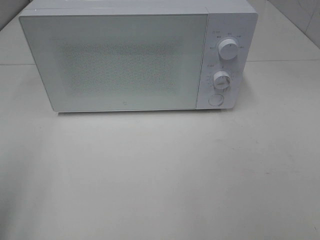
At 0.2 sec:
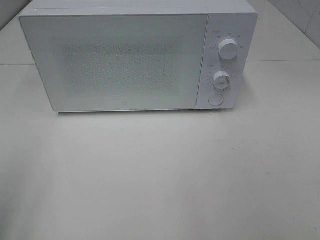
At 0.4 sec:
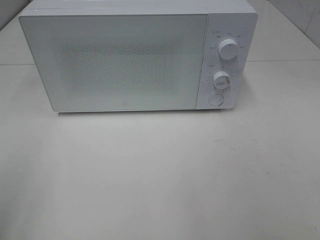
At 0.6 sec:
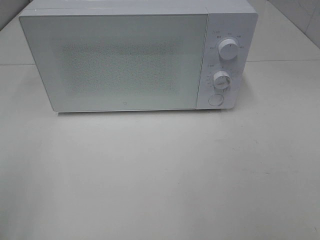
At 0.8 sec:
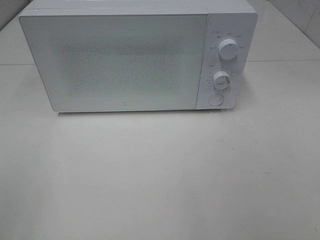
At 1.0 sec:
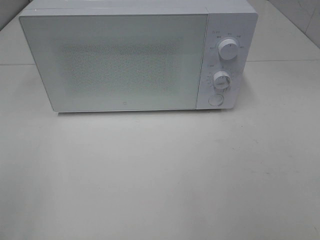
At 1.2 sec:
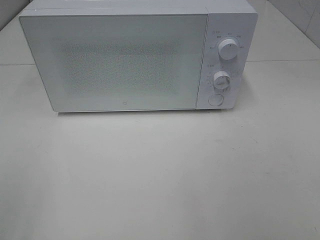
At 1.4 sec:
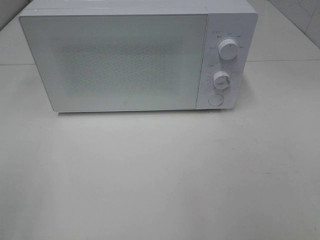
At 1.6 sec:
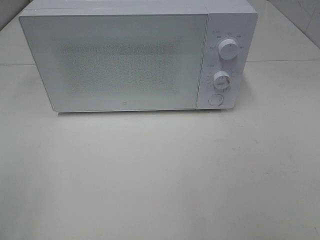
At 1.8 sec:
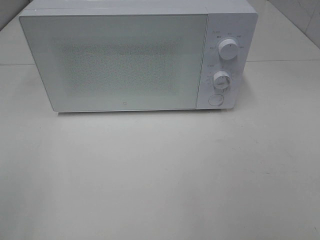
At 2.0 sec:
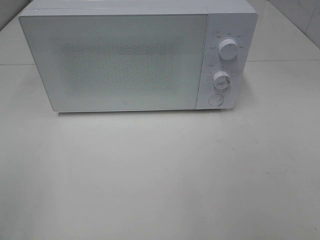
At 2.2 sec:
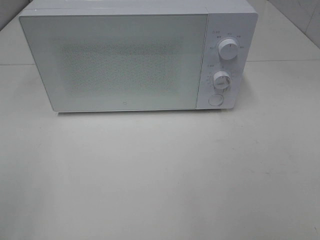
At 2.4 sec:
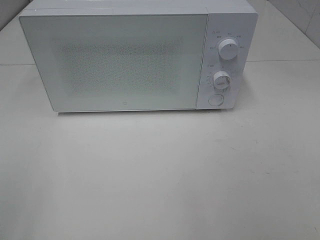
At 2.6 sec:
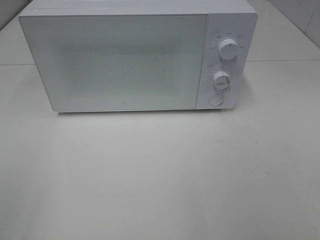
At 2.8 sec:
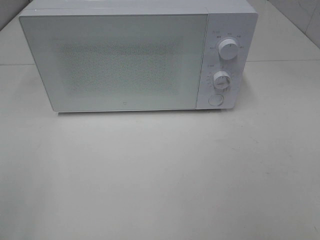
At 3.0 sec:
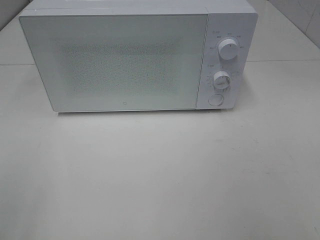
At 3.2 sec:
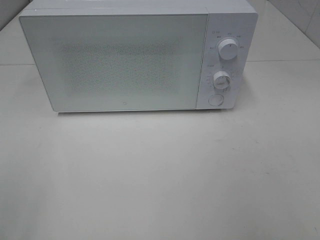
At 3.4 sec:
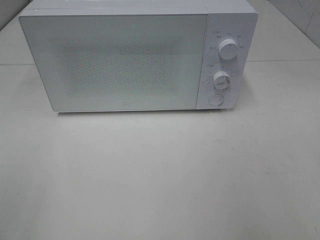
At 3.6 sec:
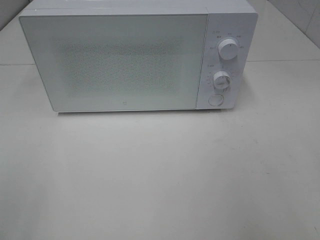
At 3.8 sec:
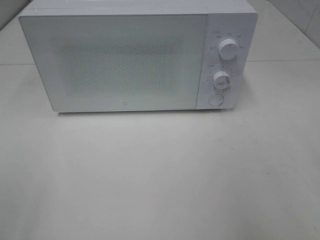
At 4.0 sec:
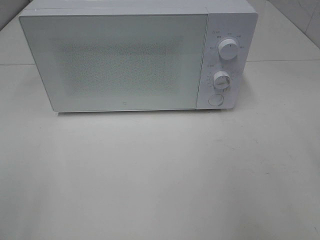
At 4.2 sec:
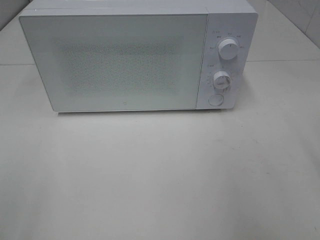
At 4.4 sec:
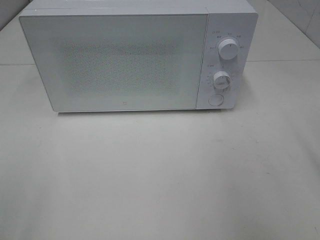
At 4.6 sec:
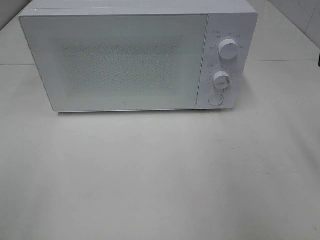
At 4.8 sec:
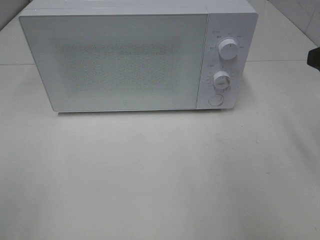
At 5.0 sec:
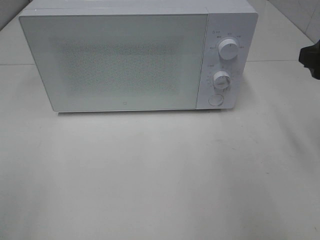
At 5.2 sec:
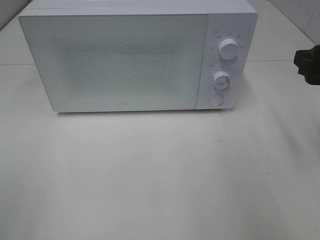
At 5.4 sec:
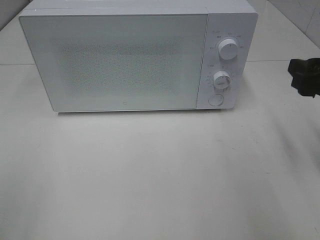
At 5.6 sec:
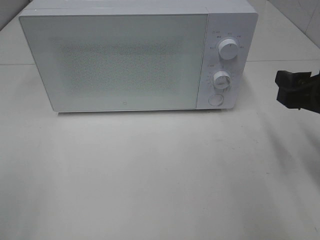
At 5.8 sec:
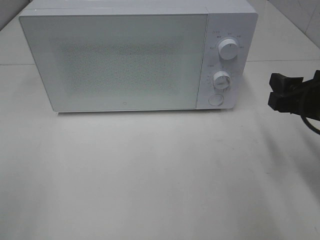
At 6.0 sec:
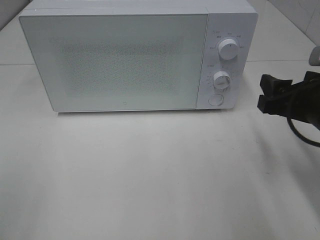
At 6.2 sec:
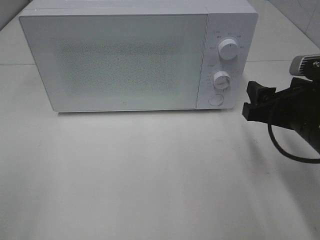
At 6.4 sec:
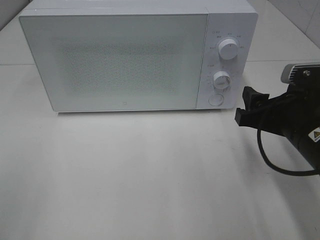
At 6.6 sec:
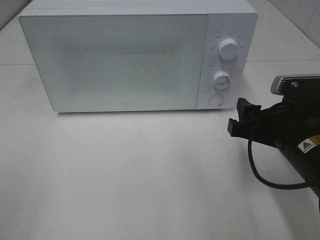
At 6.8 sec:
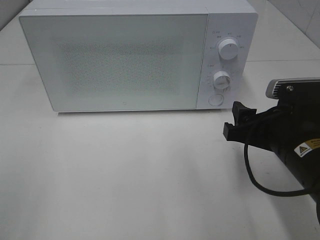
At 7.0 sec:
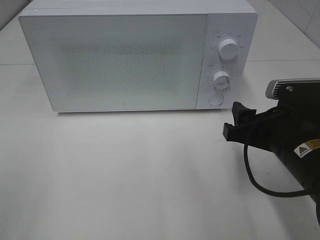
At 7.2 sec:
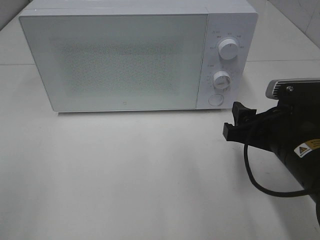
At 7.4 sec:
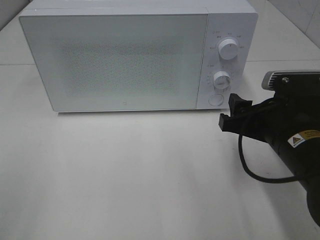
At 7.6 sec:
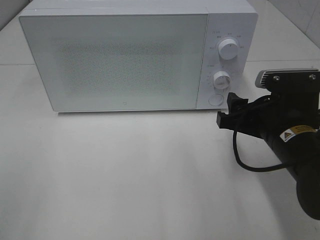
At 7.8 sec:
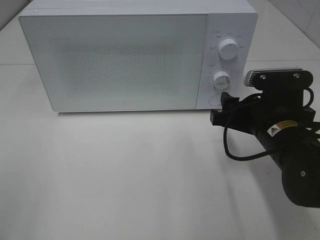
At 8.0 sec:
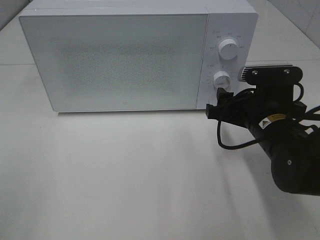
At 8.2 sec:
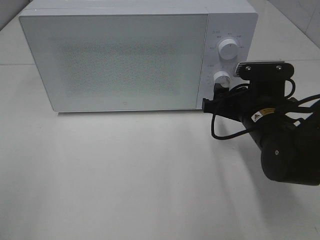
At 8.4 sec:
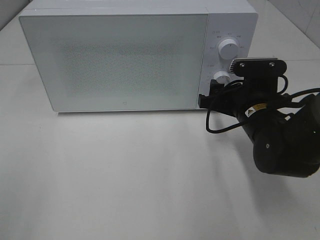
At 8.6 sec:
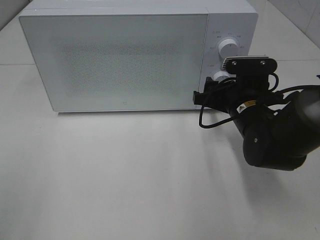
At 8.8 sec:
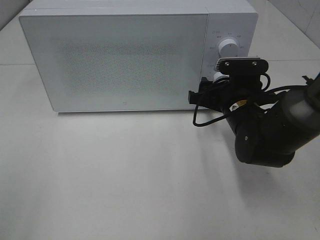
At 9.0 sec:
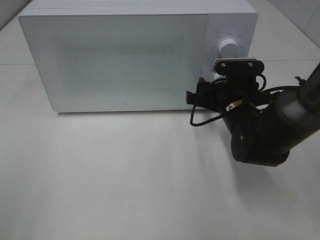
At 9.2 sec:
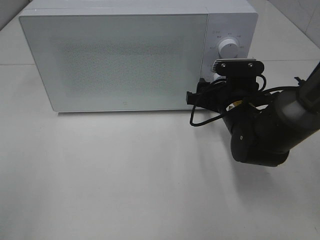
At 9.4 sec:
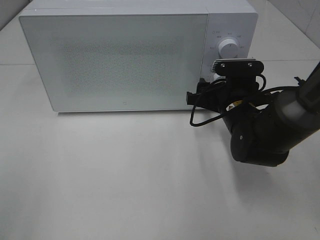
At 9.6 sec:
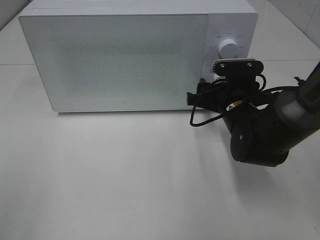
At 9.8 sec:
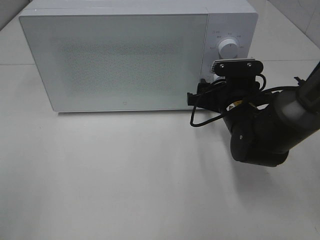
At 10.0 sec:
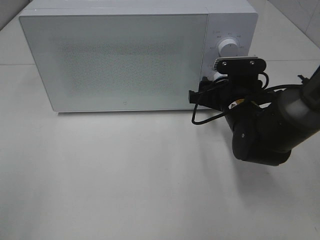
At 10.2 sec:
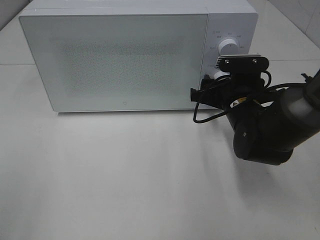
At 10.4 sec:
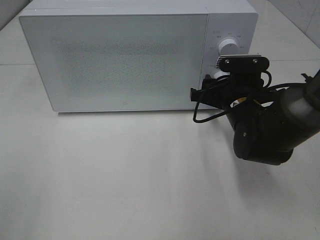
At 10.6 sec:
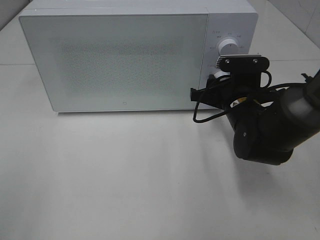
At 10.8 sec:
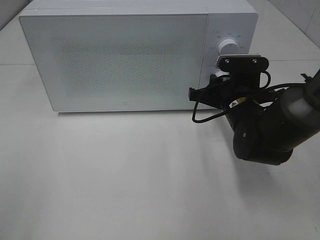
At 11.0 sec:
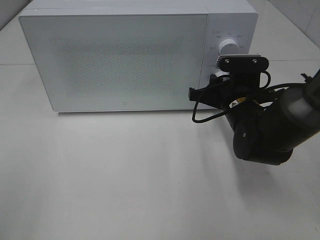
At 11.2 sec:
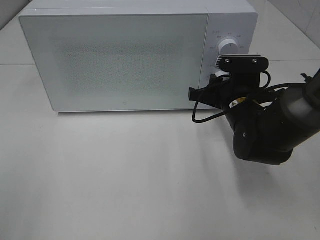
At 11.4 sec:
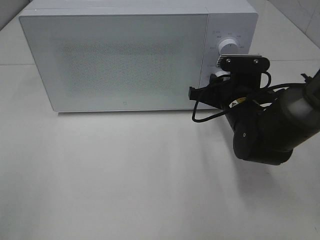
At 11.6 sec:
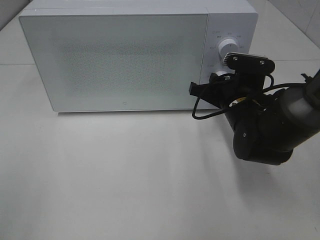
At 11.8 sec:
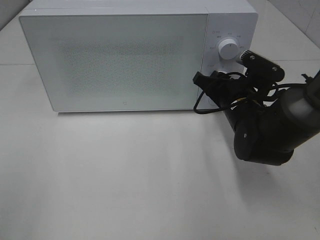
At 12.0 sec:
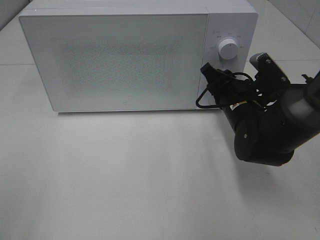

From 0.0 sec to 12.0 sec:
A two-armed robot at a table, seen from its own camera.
Task of the whole recording: Heat Sandwich.
From 4.4 sec to 6.0 sec: The right gripper heads downward and to the left, covering about 10 cm.
From 6.0 sec to 7.6 sec: The right gripper shifts about 5 cm to the left.
From 7.6 sec to 9.0 sec: The right gripper shifts about 10 cm forward.
From 9.0 sec to 10.4 sec: Both grippers stay put.

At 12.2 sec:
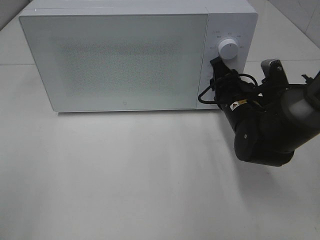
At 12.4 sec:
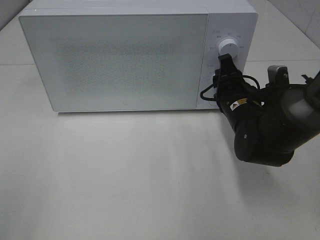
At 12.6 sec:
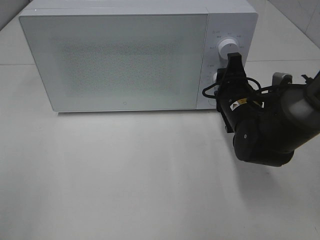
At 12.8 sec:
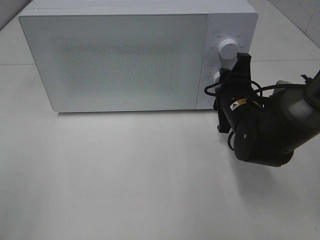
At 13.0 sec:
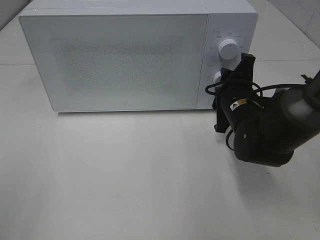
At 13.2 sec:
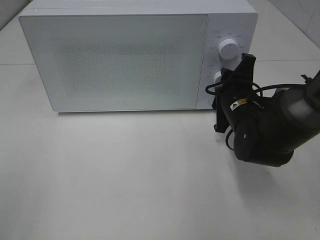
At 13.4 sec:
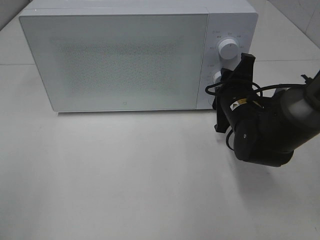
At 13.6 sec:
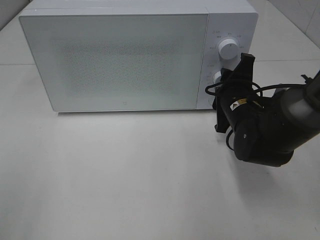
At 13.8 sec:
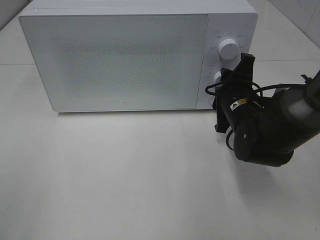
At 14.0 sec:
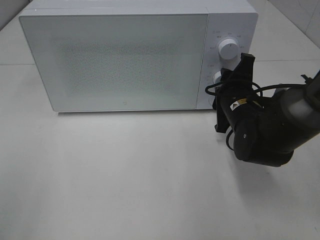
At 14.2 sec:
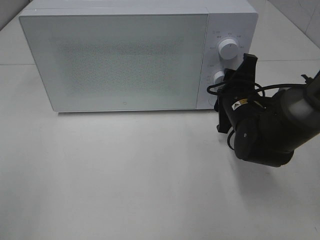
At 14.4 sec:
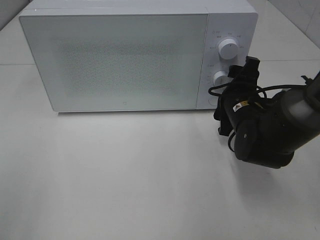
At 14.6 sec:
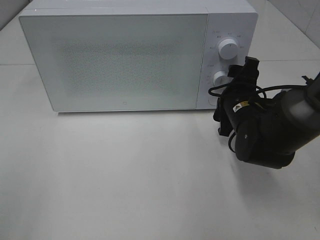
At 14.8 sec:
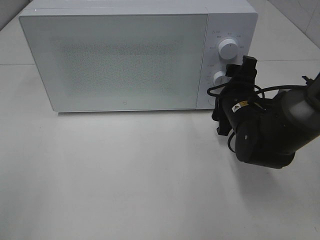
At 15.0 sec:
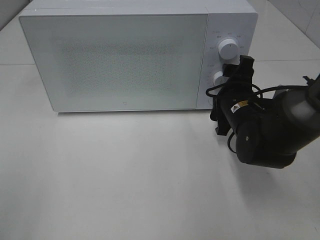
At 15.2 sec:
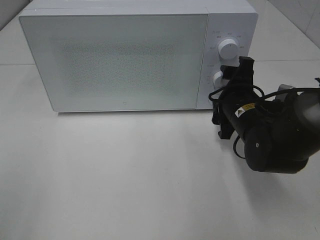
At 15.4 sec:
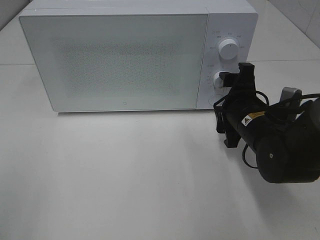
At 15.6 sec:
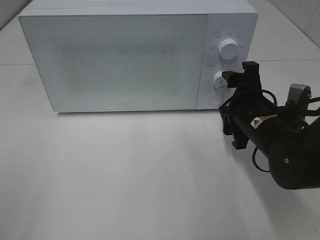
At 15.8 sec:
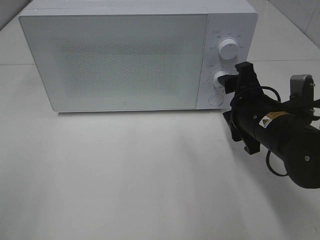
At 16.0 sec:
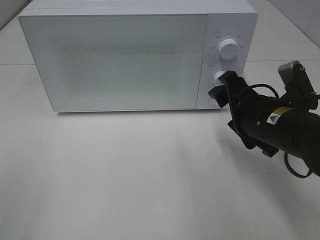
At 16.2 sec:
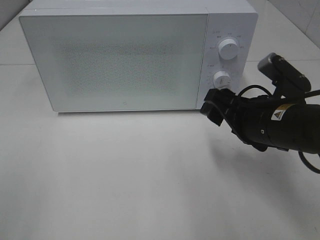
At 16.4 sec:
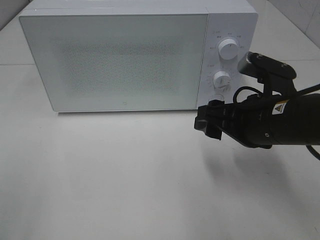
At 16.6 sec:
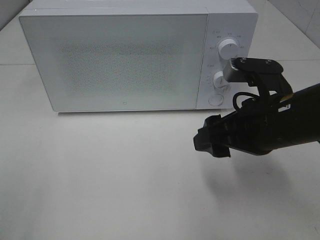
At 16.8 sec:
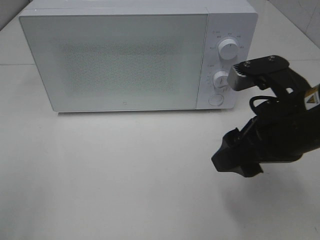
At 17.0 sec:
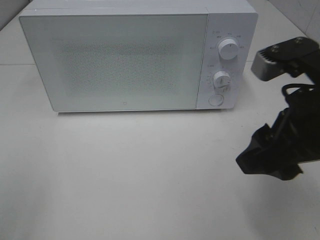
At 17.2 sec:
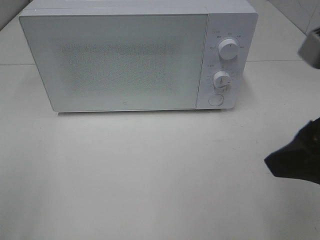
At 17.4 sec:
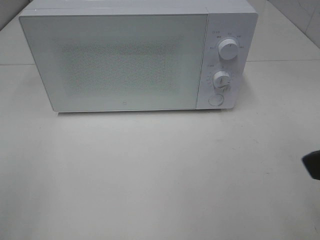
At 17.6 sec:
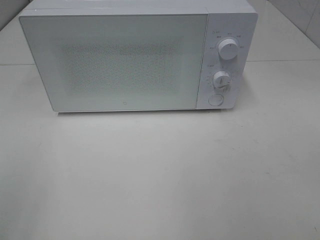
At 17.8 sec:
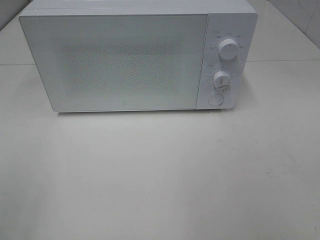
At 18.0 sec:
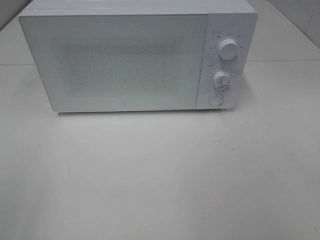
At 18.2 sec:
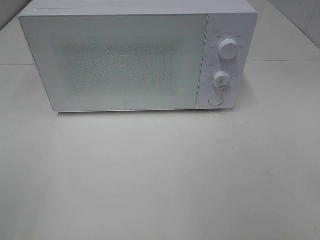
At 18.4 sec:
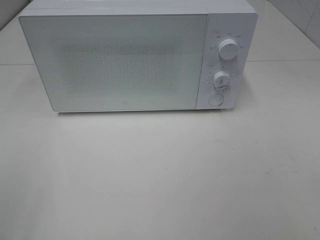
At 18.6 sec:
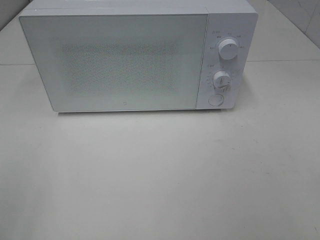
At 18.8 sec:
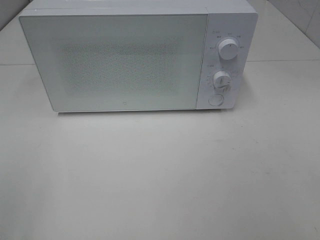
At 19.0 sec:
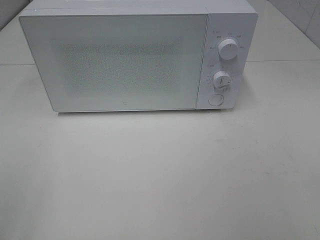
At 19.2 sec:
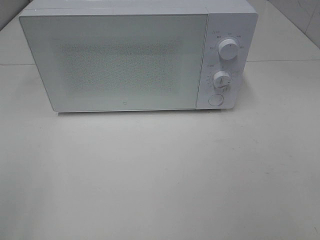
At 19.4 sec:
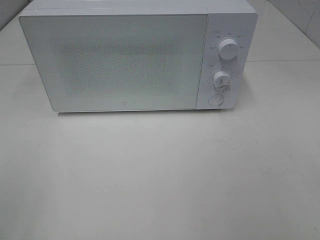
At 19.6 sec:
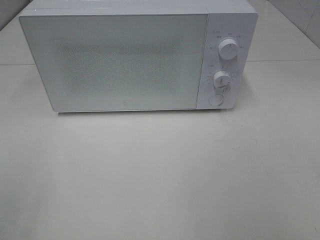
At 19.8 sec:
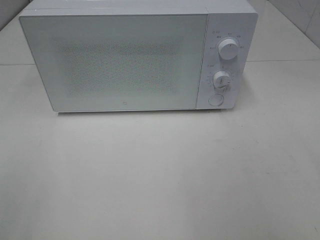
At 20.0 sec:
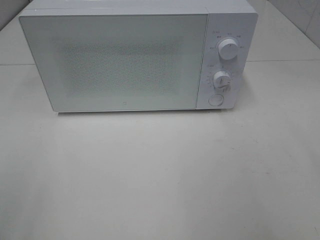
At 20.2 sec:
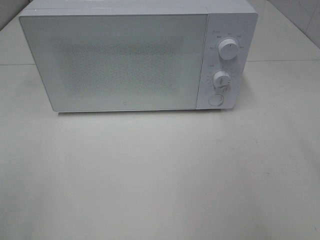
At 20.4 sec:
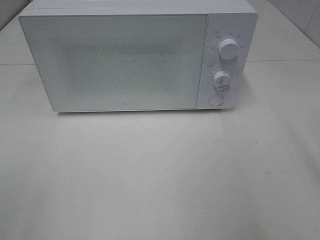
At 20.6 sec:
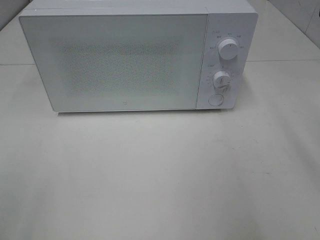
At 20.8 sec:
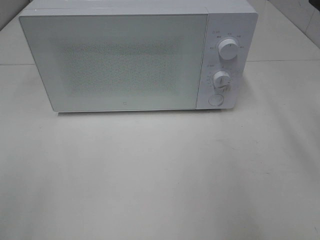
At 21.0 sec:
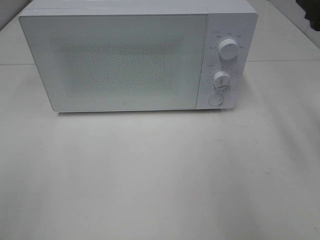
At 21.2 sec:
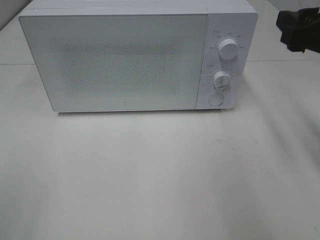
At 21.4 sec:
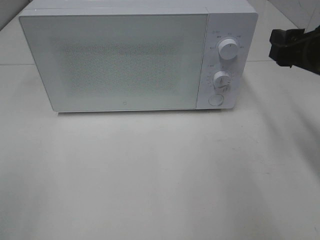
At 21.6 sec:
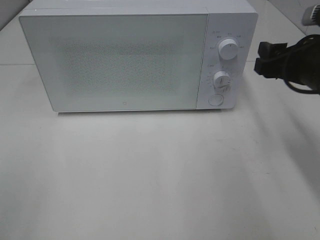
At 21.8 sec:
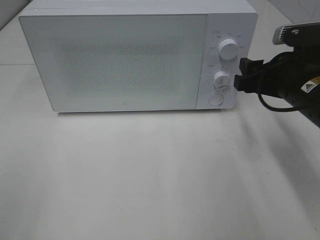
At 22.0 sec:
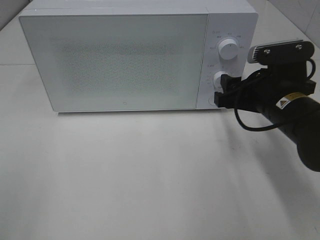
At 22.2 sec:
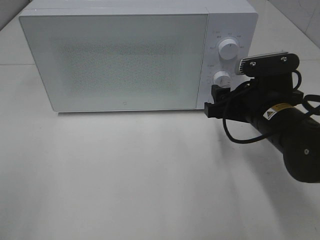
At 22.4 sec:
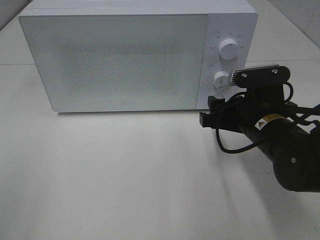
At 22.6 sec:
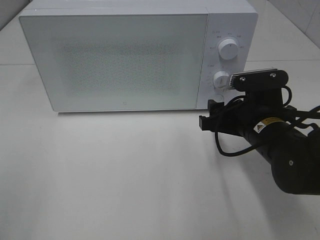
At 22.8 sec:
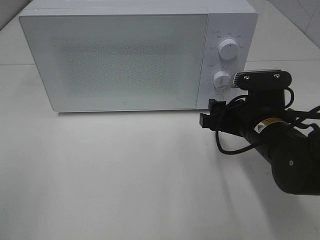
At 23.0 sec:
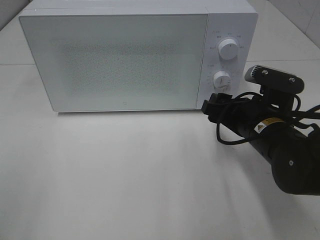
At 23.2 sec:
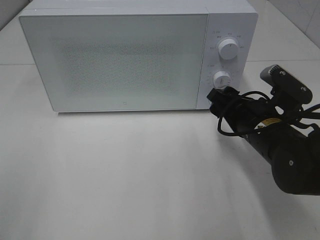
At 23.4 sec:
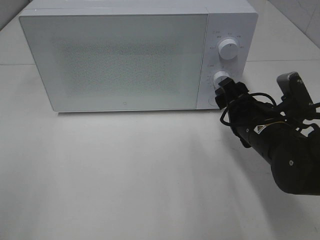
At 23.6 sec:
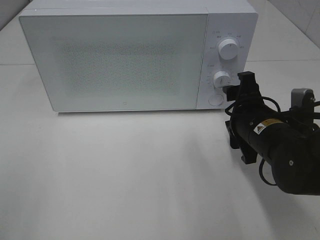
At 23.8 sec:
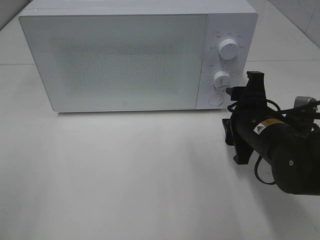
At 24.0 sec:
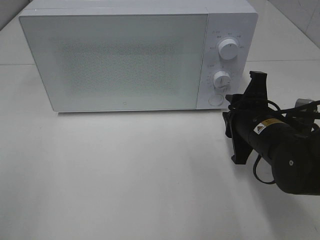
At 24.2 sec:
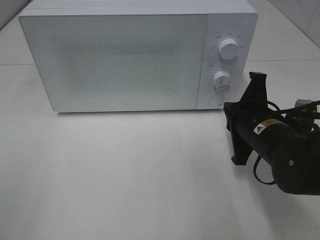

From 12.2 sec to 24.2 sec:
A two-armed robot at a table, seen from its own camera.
Task of the whole recording: Heat Sandwich.
Step, from 12.2 sec to 15.2 sec: Right hand: twist timer button.
From 13.8 sec to 15.2 sec: The right gripper opens up.
From 15.2 sec to 16.6 sec: The right gripper goes about 10 cm backward and upward.
From 16.6 sec to 18.2 sec: The right gripper shifts approximately 30 cm backward, to the right and upward.
From 19.8 sec to 21.2 sec: The right gripper is displaced forward by some 20 cm.
From 21.2 sec to 22.6 sec: The right gripper goes roughly 15 cm downward and to the left.
From 22.6 sec to 24.2 sec: The right gripper closes.
